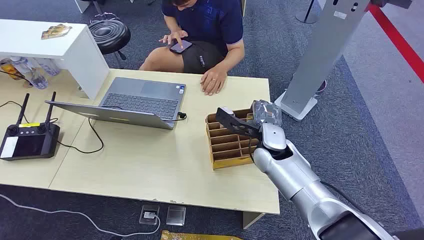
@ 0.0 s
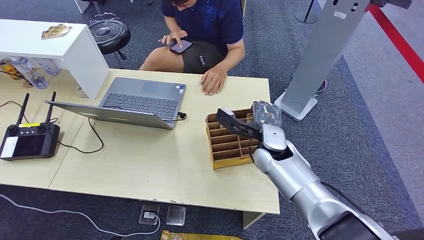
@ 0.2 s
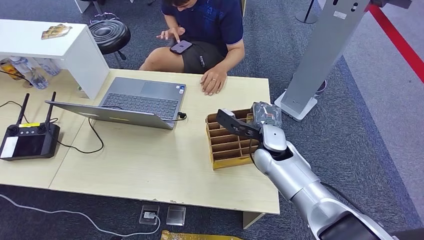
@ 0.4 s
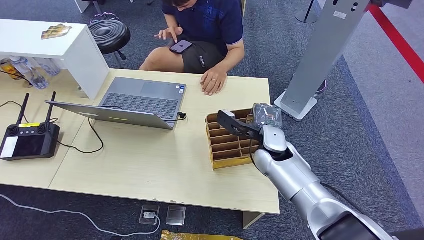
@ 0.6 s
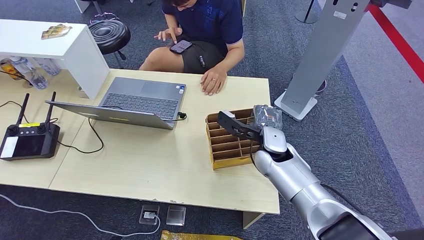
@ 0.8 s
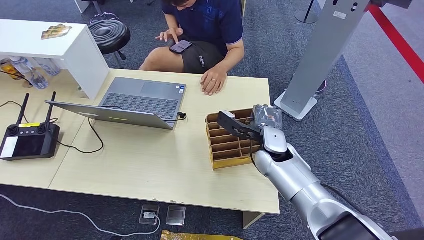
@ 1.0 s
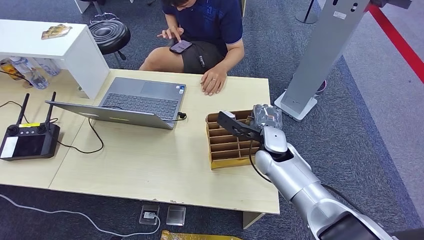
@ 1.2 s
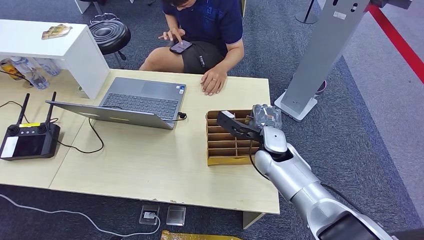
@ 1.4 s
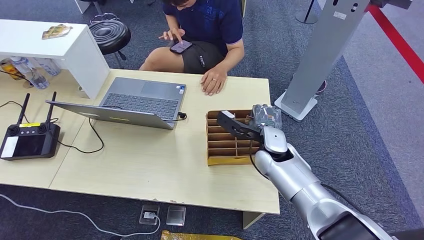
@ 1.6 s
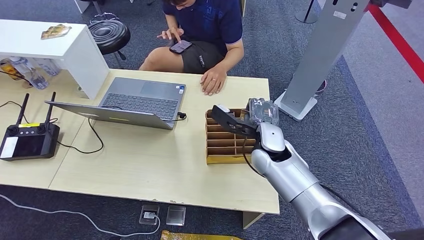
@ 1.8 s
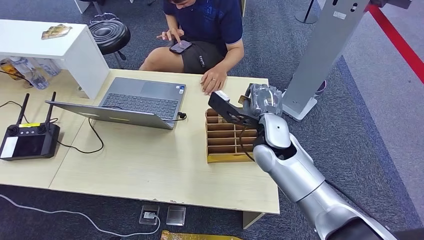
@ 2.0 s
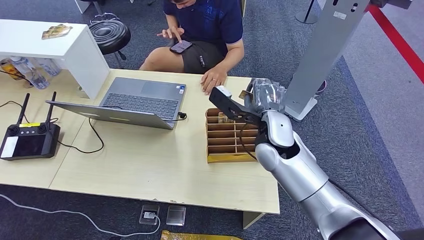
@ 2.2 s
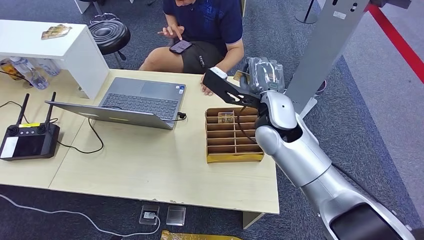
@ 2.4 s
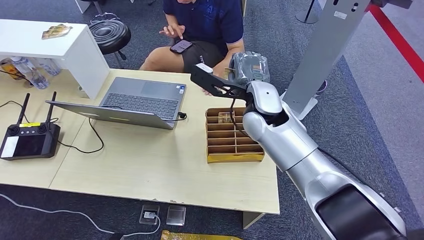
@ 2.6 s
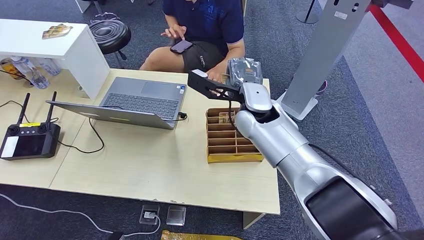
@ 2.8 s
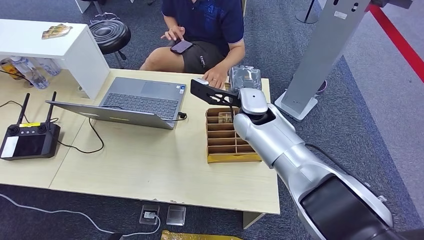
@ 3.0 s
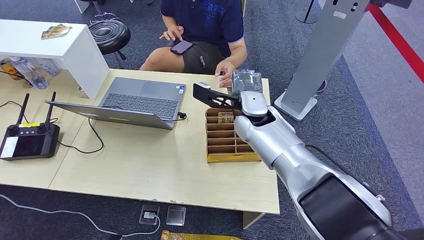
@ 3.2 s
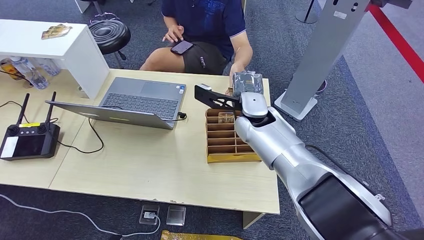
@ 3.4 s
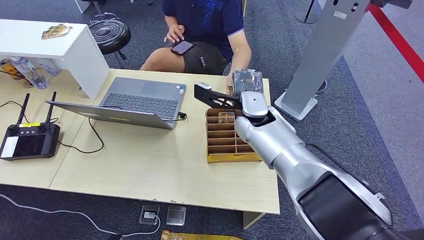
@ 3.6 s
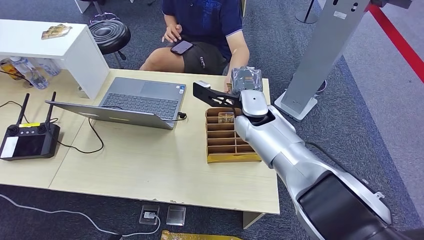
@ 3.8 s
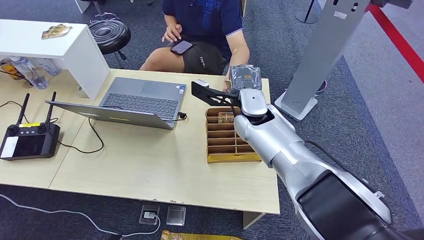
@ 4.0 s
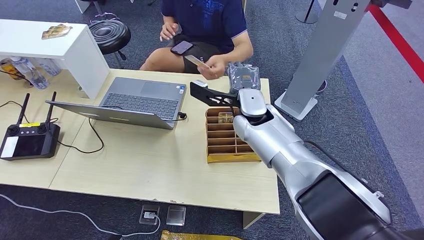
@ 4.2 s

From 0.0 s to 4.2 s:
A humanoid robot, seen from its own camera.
Step, from 0.0 s to 1.8 s: Pick up the key card from the card box.
Step, from 2.2 s to 4.2 s: Hand the key card to the target.
From 1.4 s to 2.8 s: The right hand is displaced upward and to the left by roughly 15 cm.
From 2.8 s to 4.2 s: The hands move only a little.
